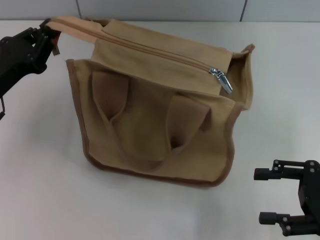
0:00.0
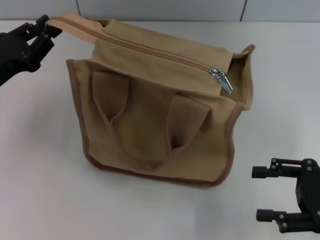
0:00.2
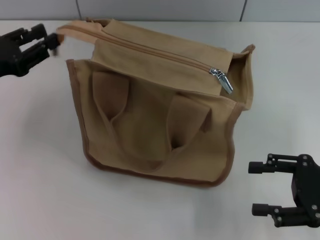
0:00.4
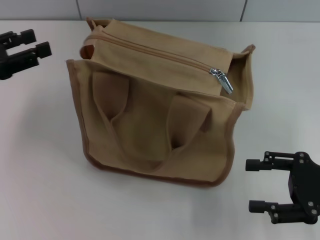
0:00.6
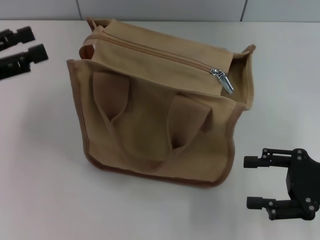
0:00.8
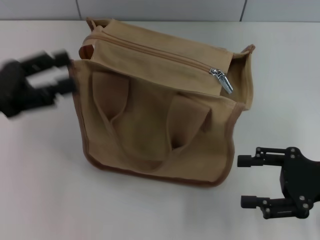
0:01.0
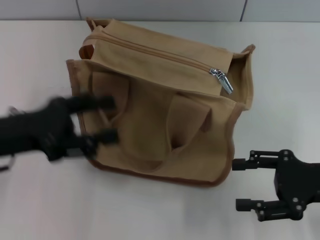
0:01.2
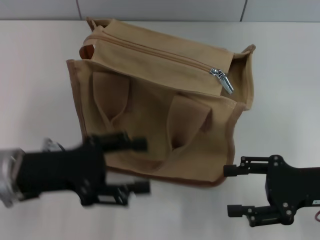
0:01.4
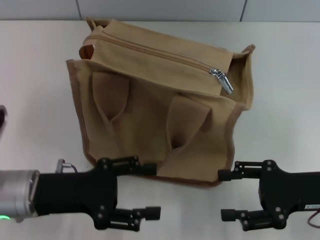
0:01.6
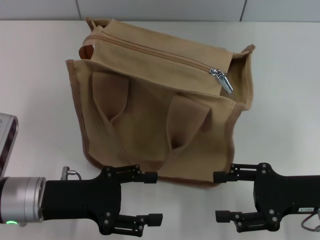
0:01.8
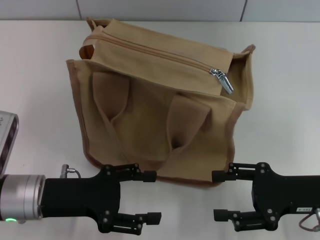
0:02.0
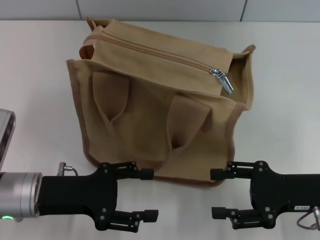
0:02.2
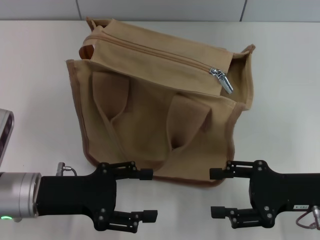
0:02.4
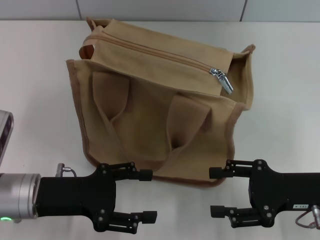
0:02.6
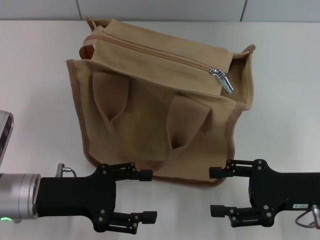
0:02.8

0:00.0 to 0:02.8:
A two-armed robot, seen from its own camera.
0:00.0 to 0:01.4: The left gripper goes roughly 5 cm backward and to the right, and opens.
0:01.4 to 0:02.8: The grippers move only a little.
